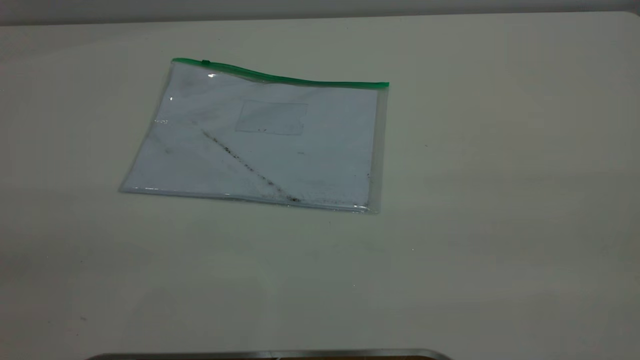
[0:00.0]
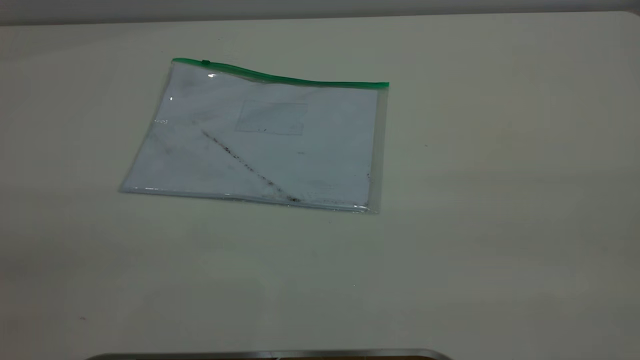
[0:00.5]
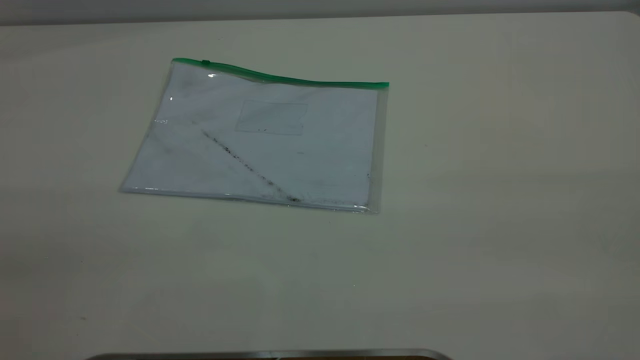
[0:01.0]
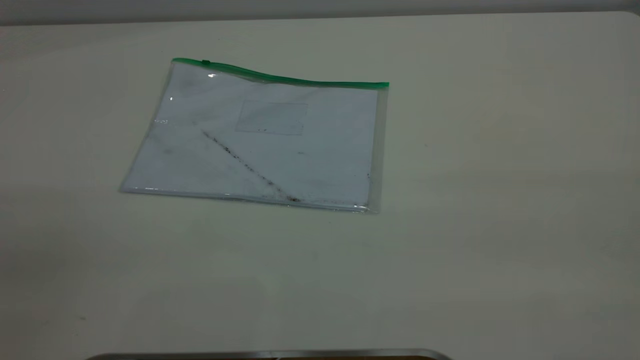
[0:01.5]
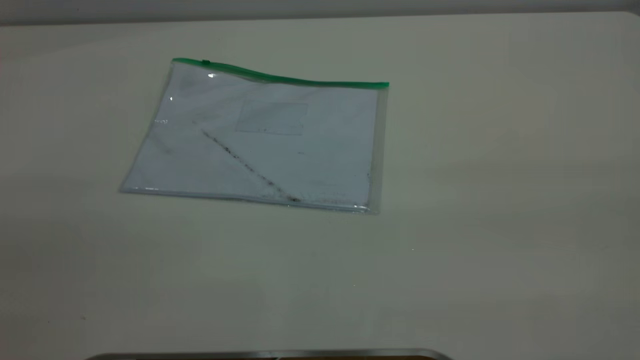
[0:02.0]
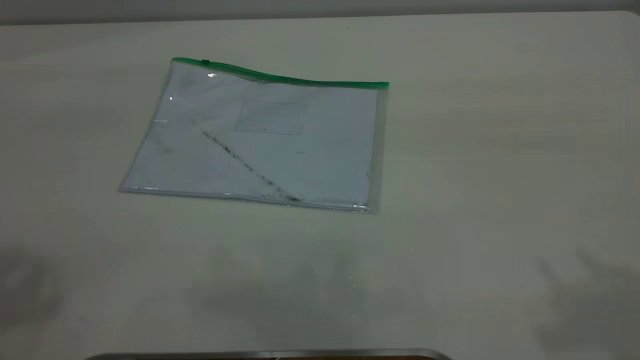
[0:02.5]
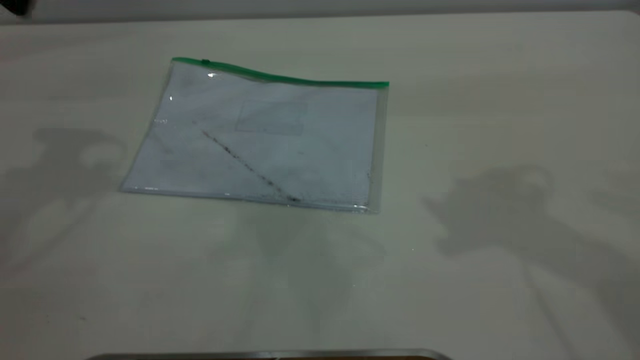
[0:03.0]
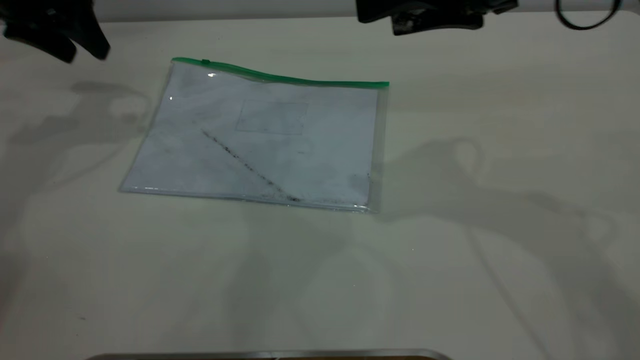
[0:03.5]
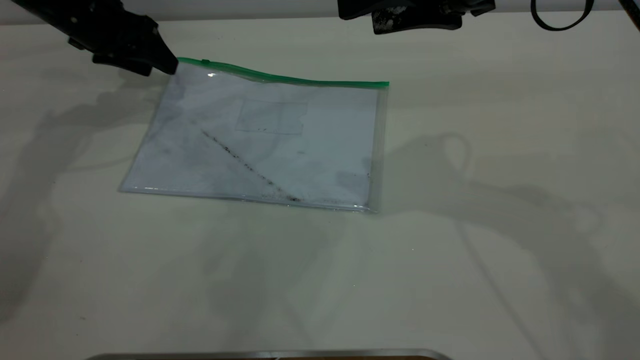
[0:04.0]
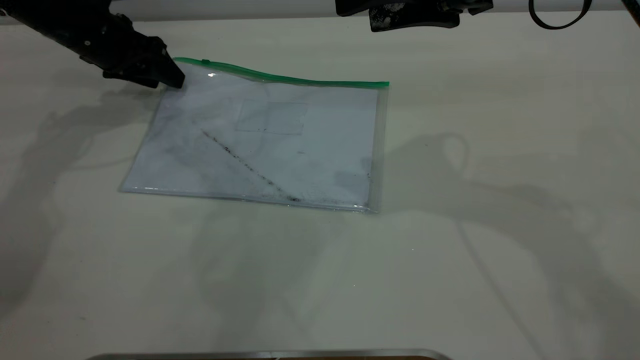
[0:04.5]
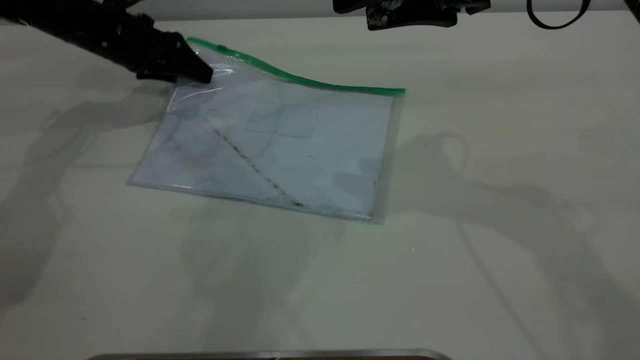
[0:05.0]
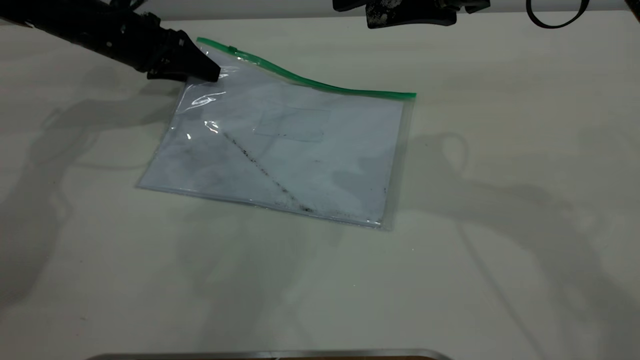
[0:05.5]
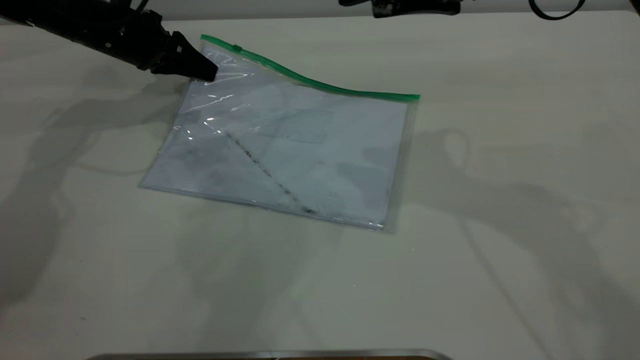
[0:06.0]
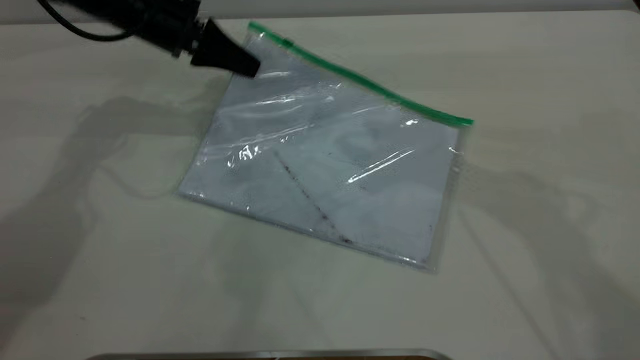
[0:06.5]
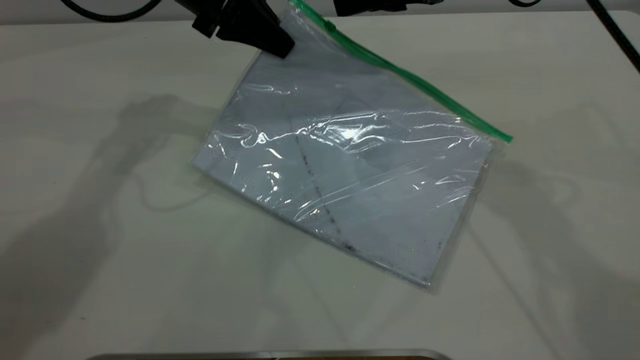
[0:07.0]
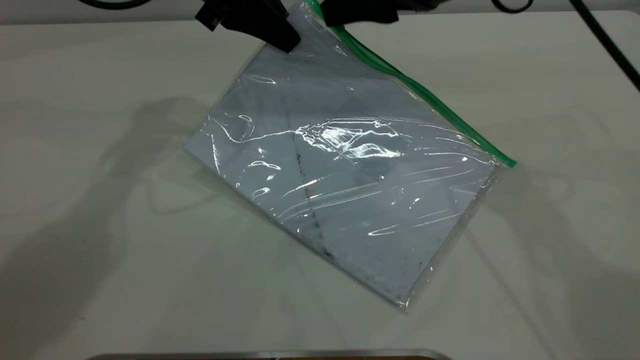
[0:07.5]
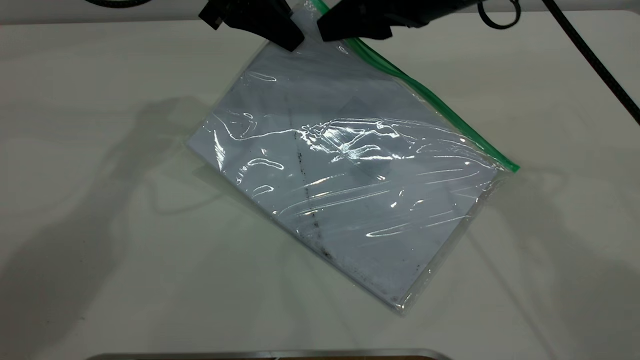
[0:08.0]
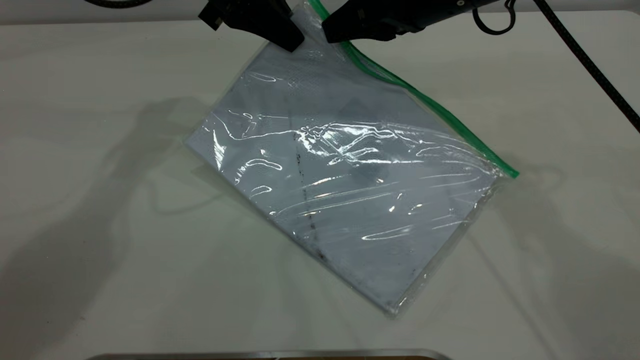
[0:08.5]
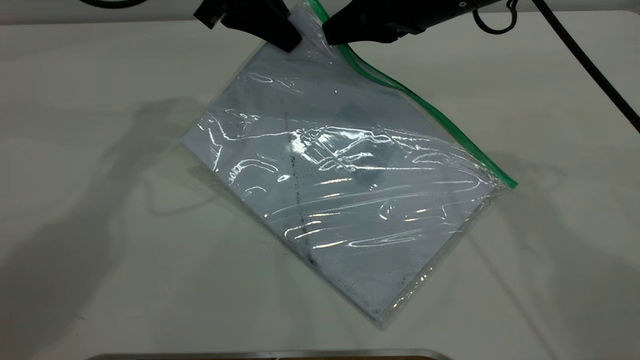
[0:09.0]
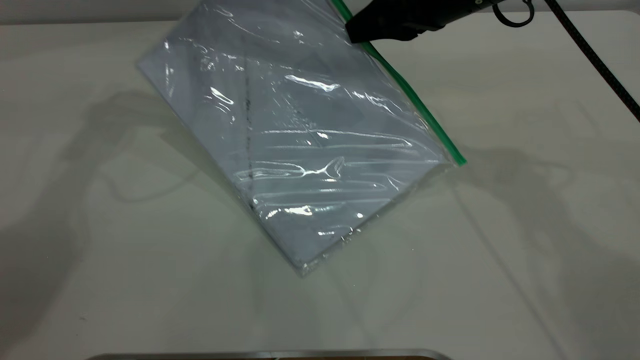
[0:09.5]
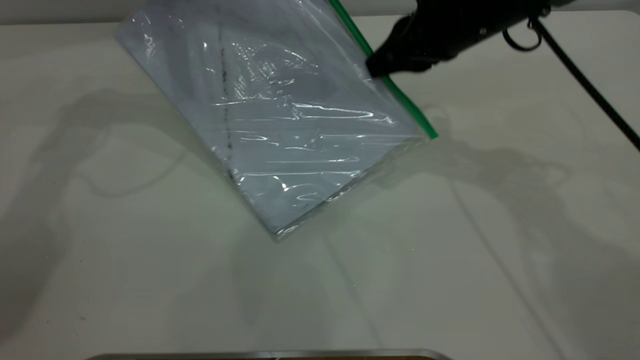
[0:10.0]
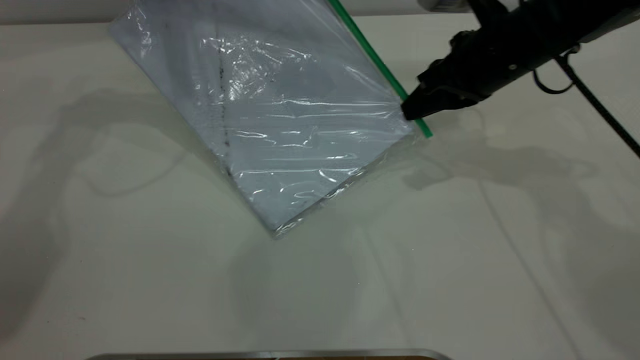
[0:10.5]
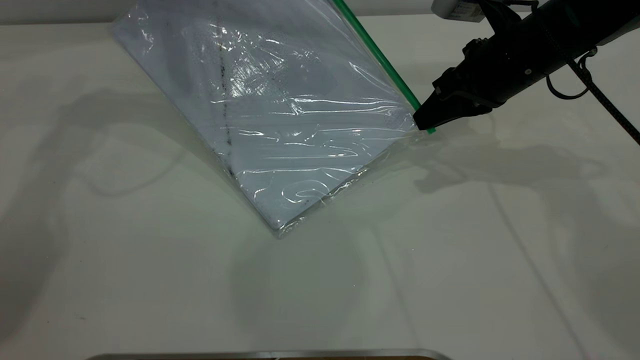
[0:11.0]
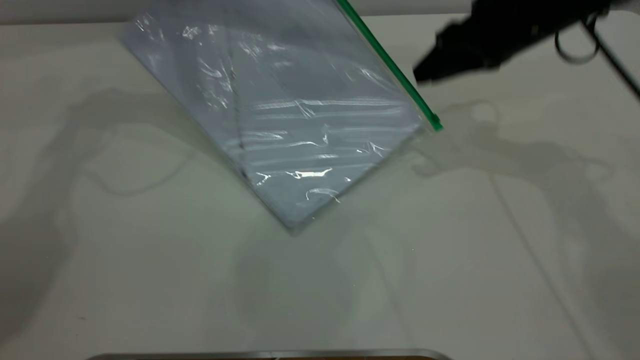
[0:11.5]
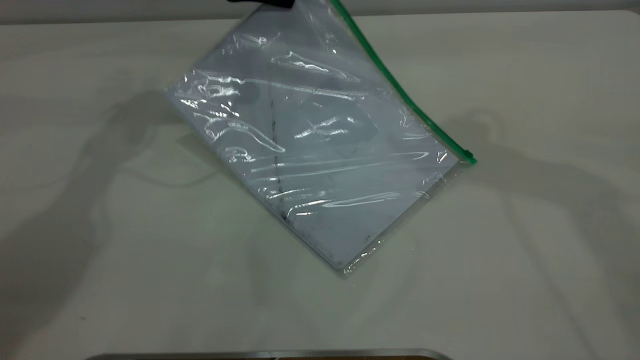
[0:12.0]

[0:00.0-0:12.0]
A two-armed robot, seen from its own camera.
Step, 0:00.0 to 0:06.0: Pick up the transparent plastic bag with the left gripper.
Step, 0:06.5 to 0:11.0: Pulling up the zipper on the transparent plastic bag with the right gripper to close it.
0:02.0 to 0:04.0: The left gripper travels forward and downward by approximately 50 cm, while the right gripper goes roughly 40 cm forward, to the left and downward.
0:04.0 to 0:06.0: The left gripper closes.
0:06.0 to 0:08.0: The left gripper moves to the right and upward, about 15 cm, while the right gripper shifts by some 5 cm.
0:08.0 to 0:10.0: The right gripper changes place by roughly 5 cm, and closes its fingers. The left gripper heads to the left, covering about 10 cm.
0:10.0 to 0:12.0: The left gripper heads downward, covering approximately 5 cm, while the right gripper shifts about 25 cm upward, and opens up.
